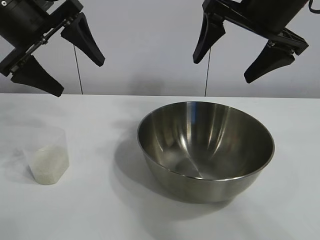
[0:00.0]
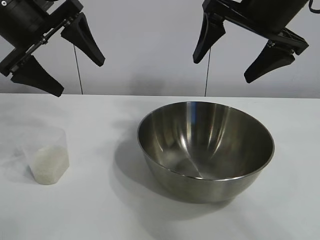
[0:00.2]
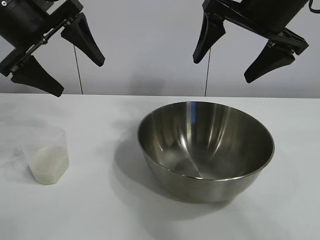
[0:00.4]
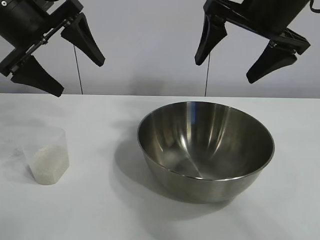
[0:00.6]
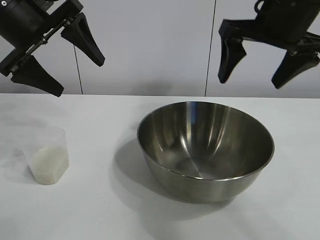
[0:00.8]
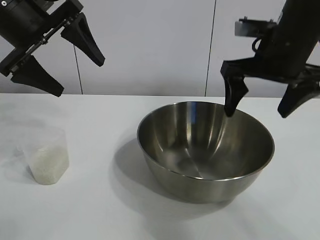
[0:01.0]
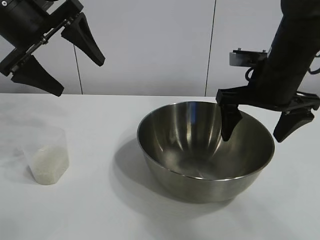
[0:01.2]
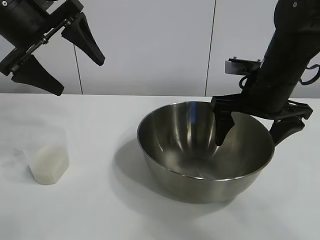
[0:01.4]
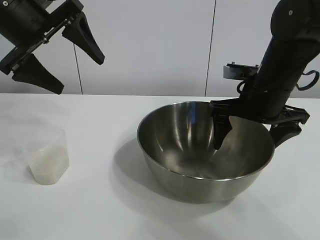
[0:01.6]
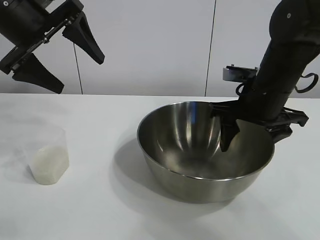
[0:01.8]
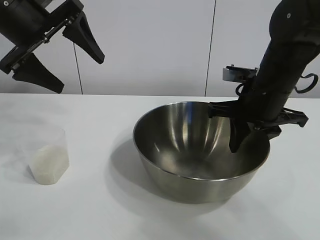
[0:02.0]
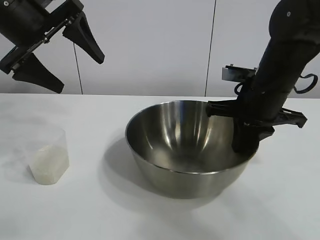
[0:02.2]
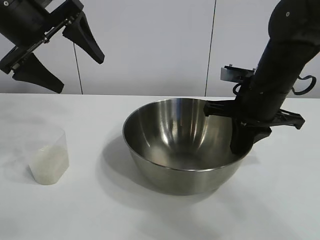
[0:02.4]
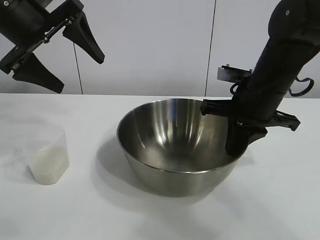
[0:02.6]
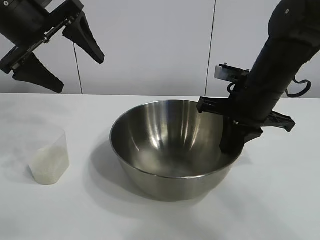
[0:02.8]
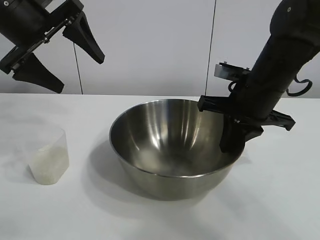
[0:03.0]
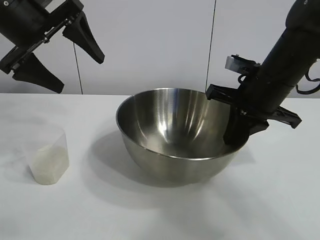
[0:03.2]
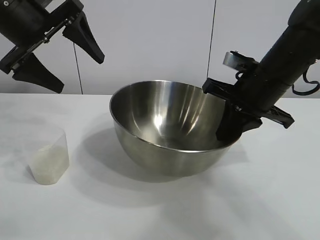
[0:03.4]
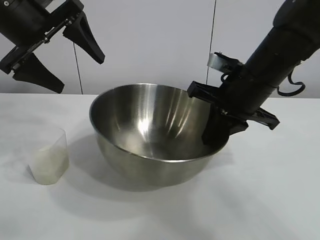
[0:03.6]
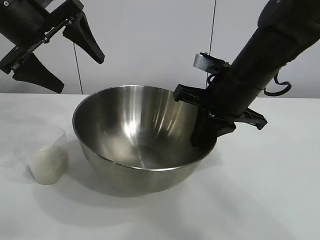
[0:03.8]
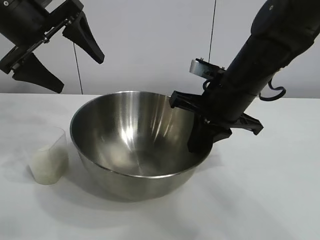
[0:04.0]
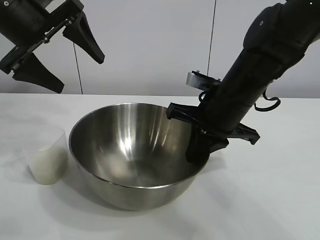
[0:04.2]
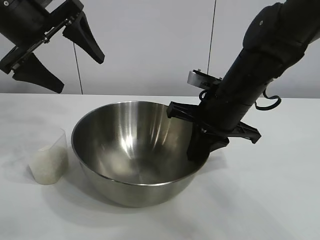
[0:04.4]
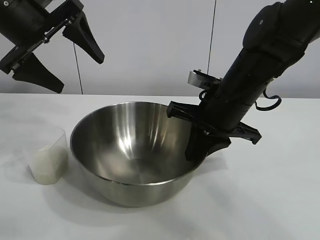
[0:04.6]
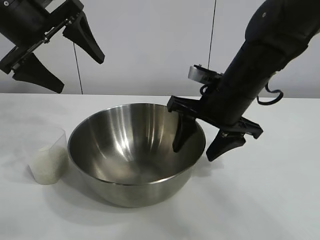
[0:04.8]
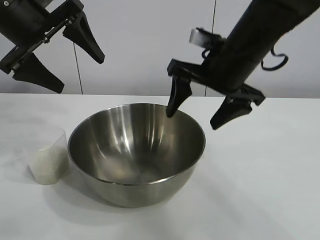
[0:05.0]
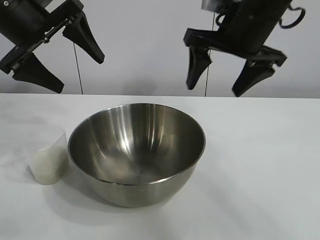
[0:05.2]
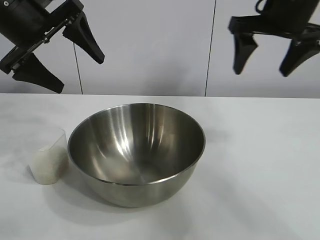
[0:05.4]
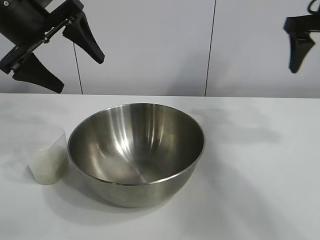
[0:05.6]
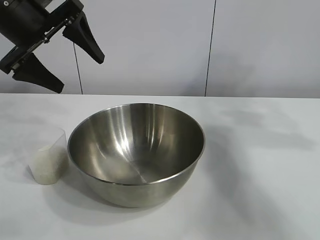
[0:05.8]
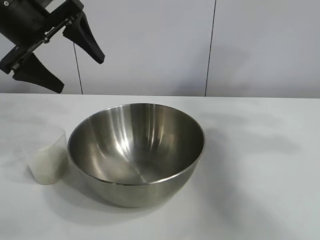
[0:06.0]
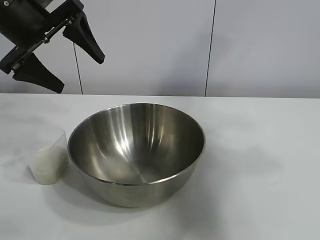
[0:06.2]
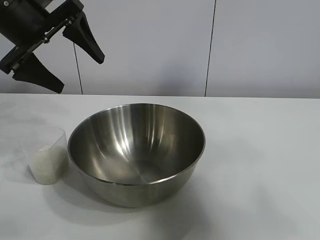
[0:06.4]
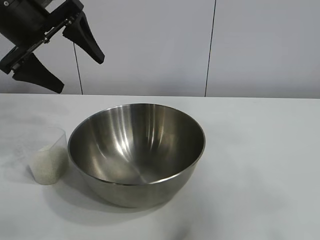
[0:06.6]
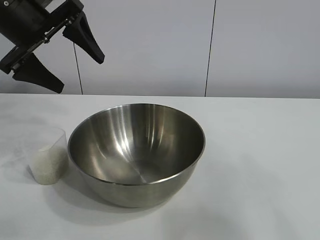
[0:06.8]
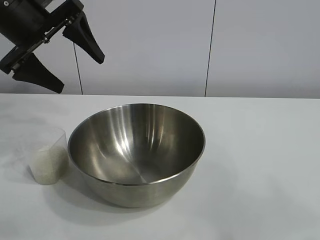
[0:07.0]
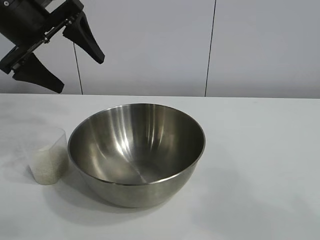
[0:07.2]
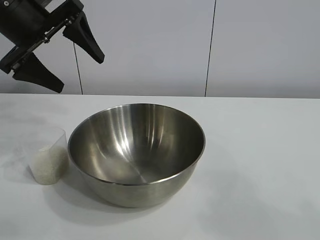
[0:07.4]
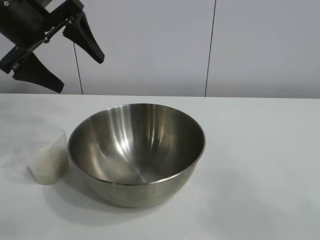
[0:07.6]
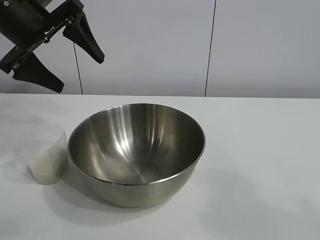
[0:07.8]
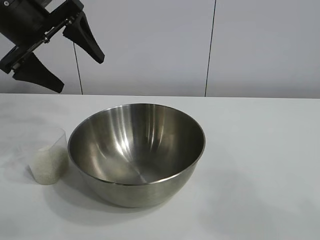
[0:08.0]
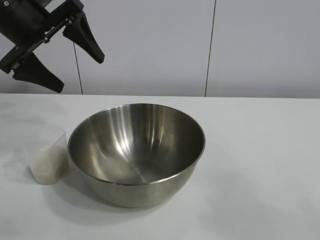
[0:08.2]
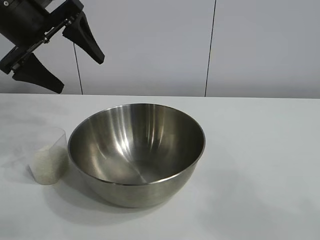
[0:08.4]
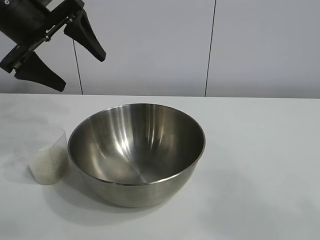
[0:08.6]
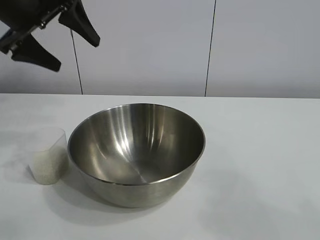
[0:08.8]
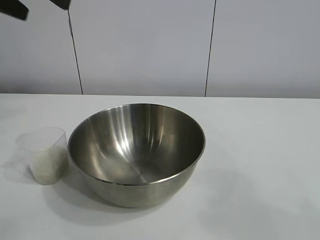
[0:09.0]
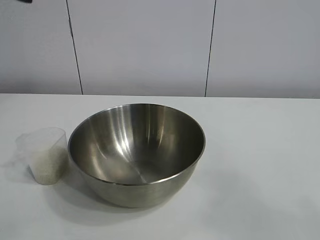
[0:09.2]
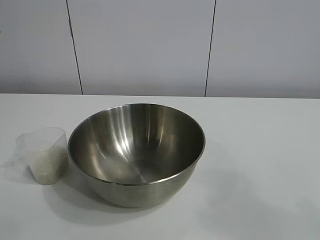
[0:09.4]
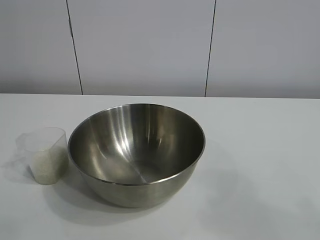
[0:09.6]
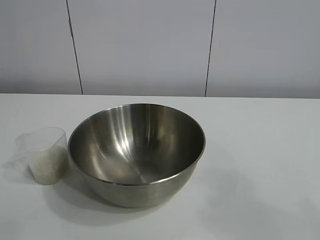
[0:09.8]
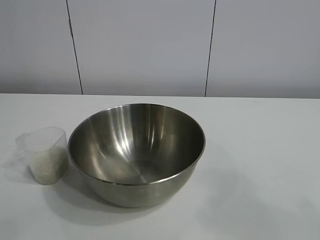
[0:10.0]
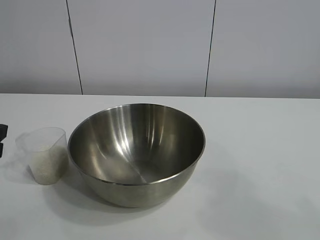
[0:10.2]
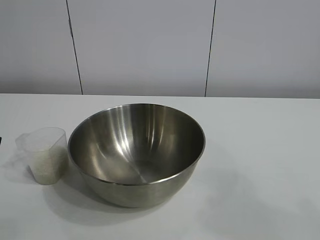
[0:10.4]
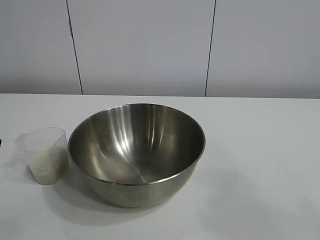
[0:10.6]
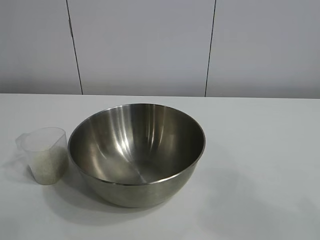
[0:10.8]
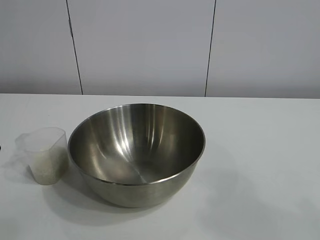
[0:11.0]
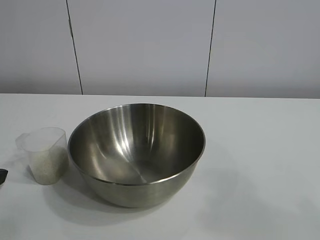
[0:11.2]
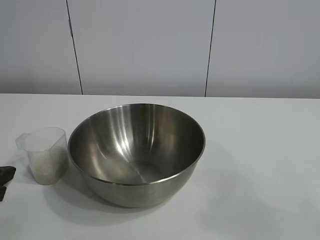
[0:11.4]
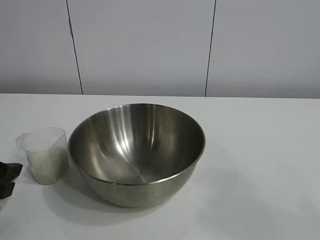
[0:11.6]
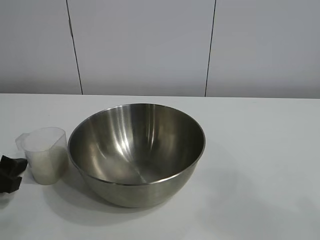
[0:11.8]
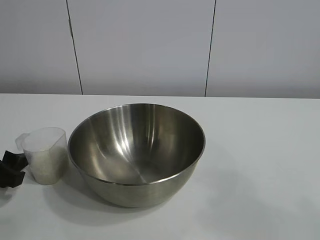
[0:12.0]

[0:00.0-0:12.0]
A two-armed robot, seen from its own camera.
Task of the whole recording: the right gripper grasp the rice container and place it in the center of the table, the left gripper grasp the rice scoop and pour the rice into the rice container.
Step, 0:00.6 to 0:04.6: Move the bowl in the center of view with right gripper.

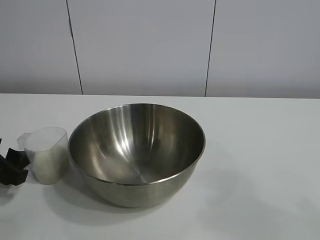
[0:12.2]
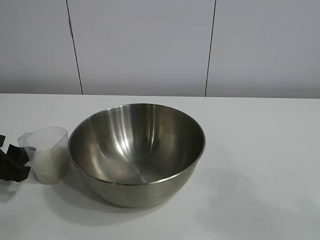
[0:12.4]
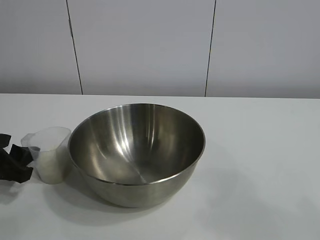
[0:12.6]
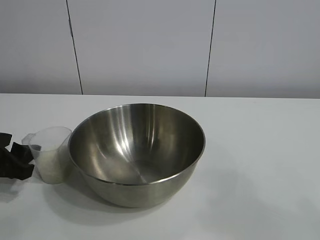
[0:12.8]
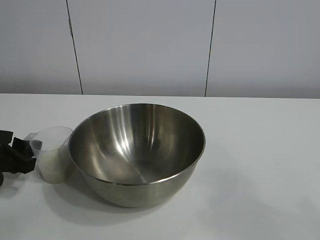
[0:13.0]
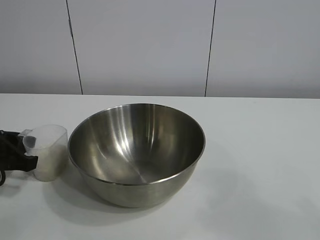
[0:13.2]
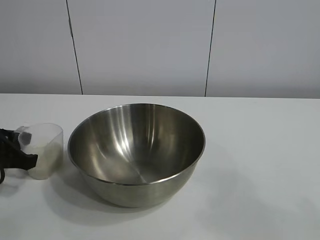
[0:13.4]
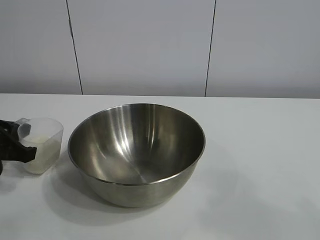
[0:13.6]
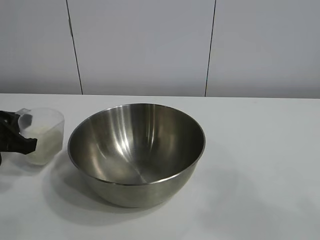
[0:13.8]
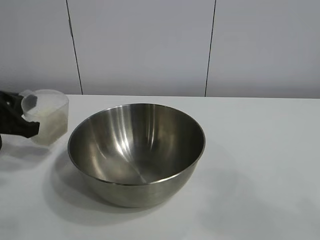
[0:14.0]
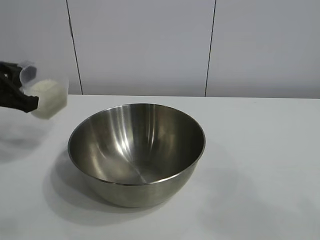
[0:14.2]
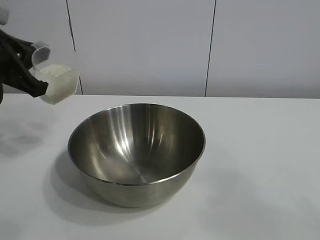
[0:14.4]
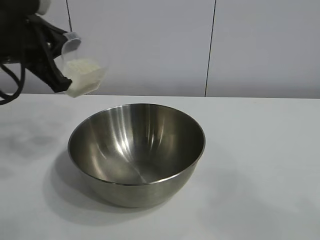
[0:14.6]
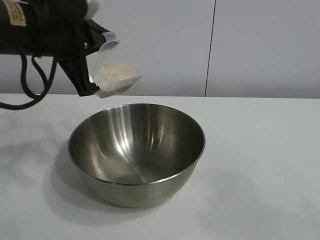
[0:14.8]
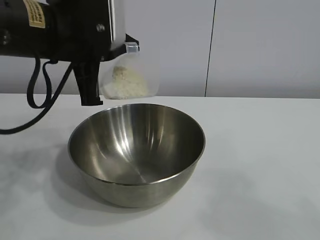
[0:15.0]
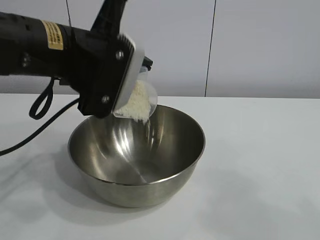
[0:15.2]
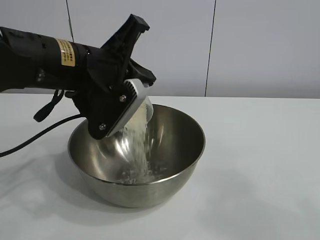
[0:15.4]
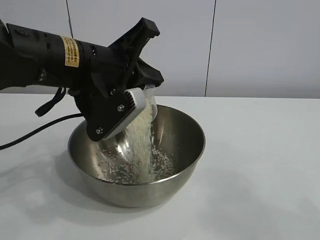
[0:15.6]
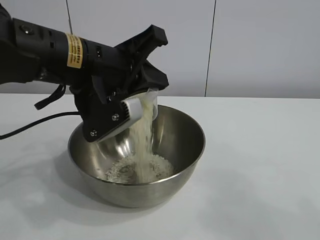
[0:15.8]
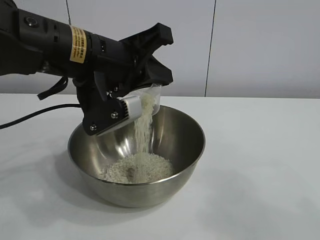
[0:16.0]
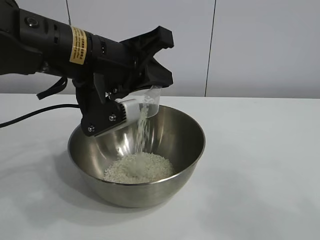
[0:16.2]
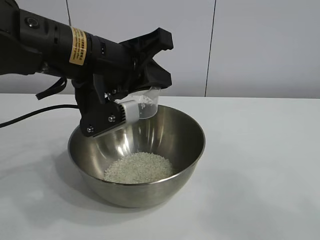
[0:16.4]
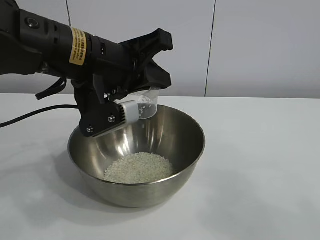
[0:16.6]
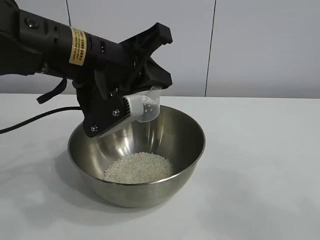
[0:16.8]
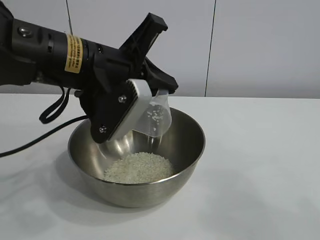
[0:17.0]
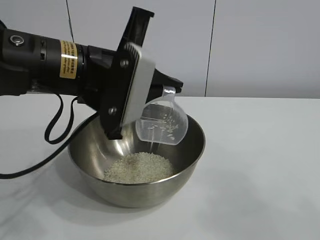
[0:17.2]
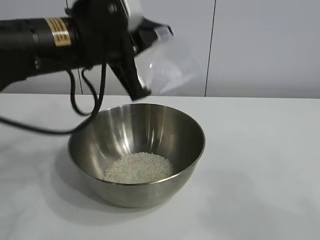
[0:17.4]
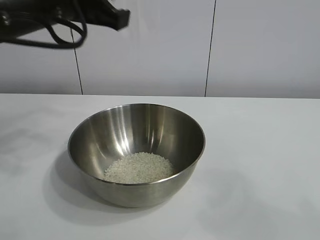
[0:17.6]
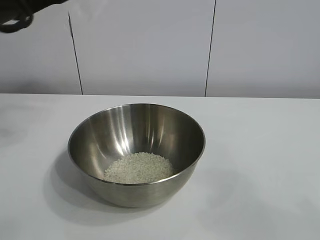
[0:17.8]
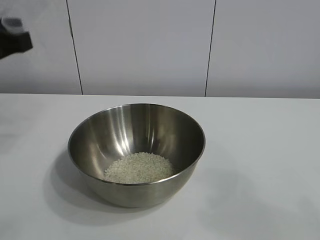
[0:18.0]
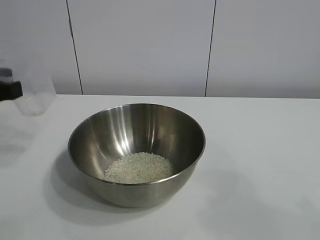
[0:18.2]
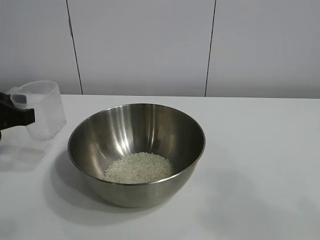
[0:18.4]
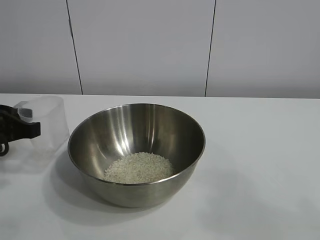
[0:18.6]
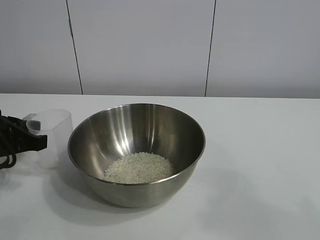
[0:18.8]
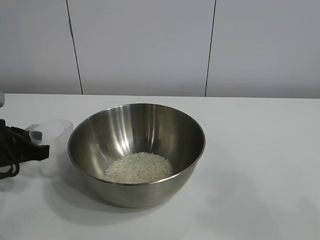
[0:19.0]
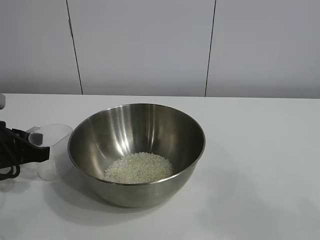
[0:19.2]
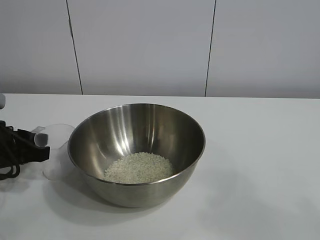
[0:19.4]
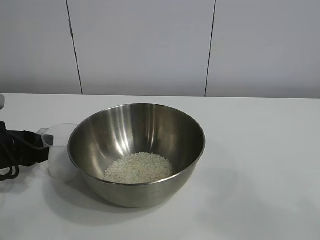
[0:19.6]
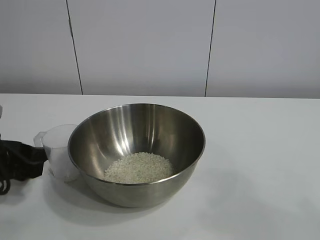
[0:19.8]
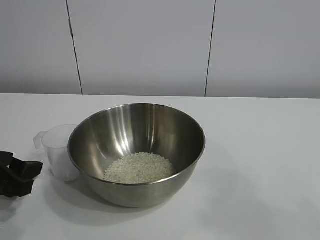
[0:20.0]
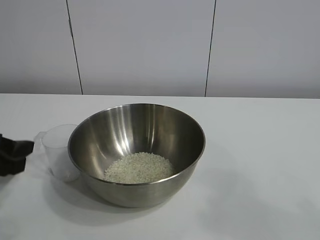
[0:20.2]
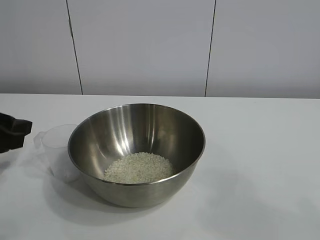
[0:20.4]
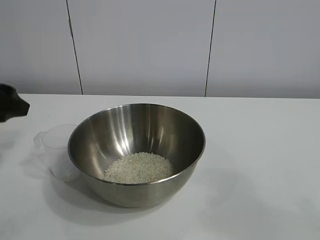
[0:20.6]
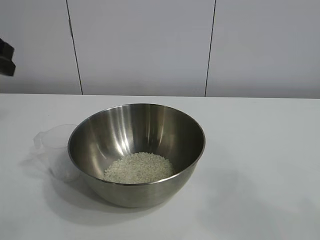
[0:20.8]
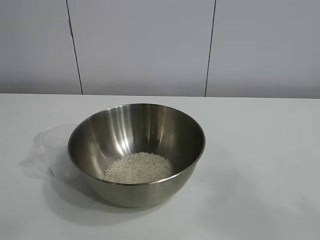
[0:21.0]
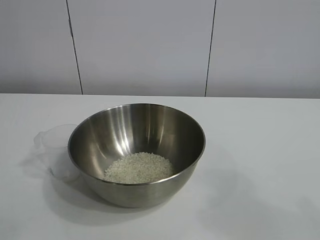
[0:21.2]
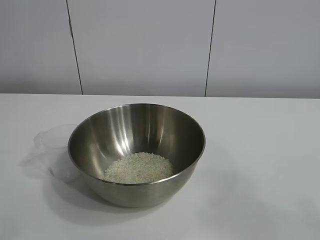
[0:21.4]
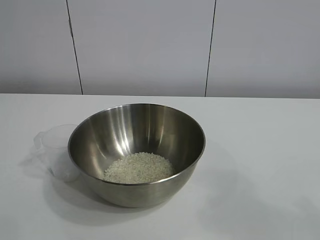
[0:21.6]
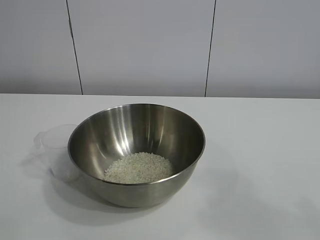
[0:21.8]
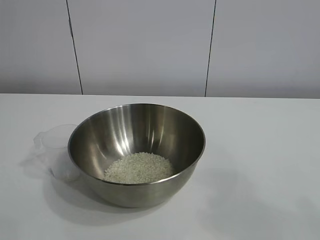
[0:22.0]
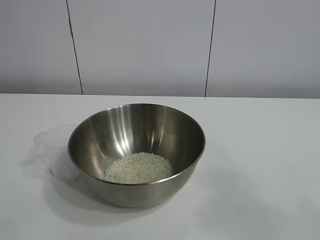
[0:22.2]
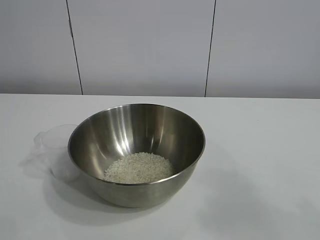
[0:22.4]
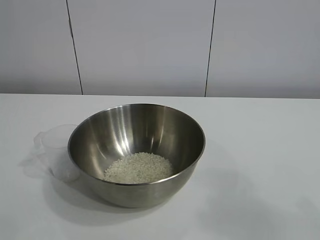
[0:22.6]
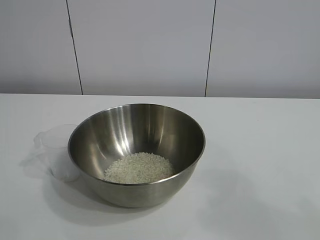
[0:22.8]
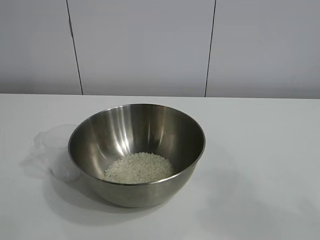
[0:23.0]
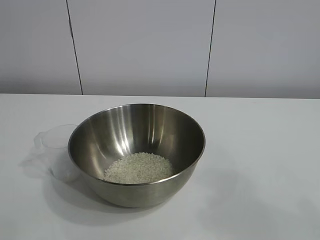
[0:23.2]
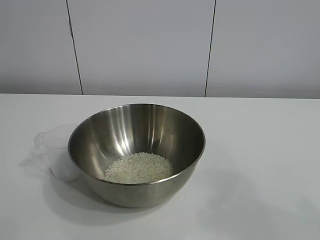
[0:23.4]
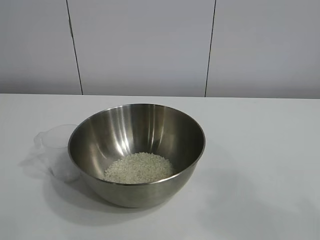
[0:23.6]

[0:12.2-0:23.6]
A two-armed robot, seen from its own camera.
Task of the whole recording: the right gripper grasp the rice container and place it in the center of the table, the left gripper grasp the rice scoop and pour the rice into the rice container.
Step, 0:13.6 to 0:16.4: Pour the rice from the cup into the bowl with the left gripper.
Step, 0:16.6 to 0:19.8: Place the cup on the table with the left gripper.
